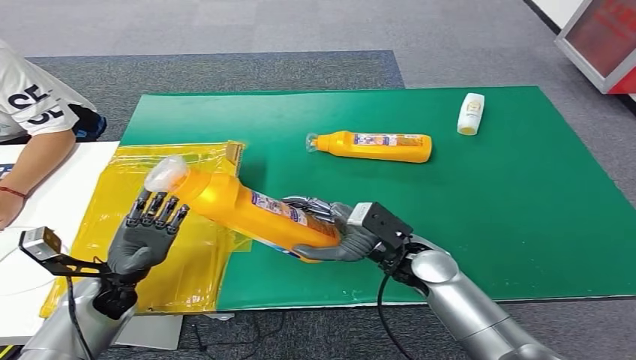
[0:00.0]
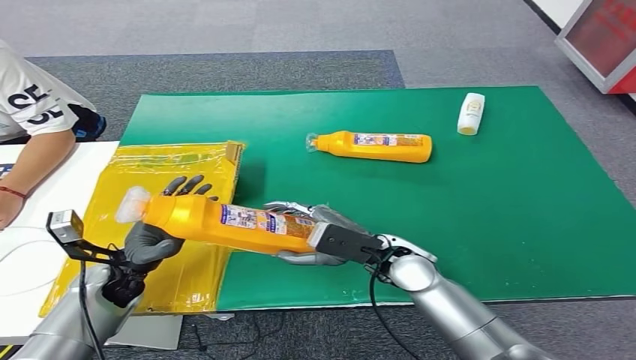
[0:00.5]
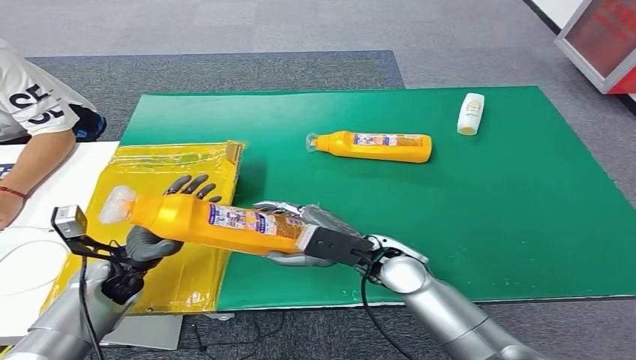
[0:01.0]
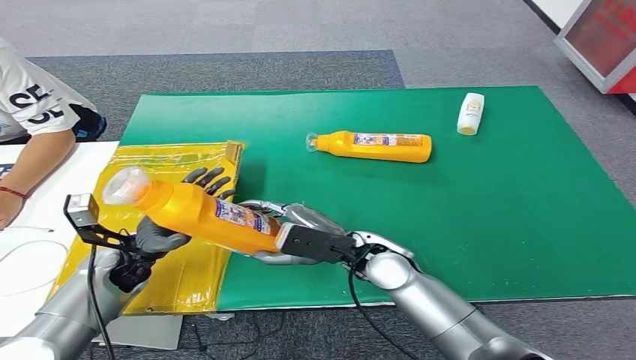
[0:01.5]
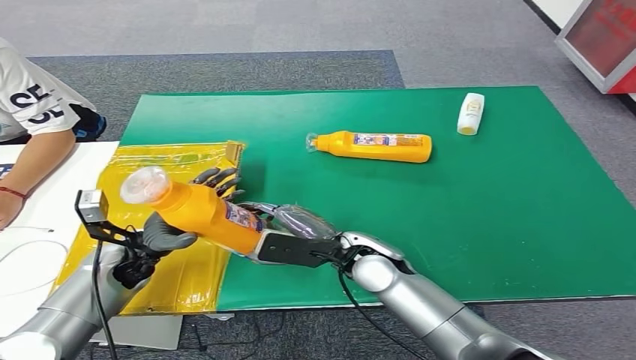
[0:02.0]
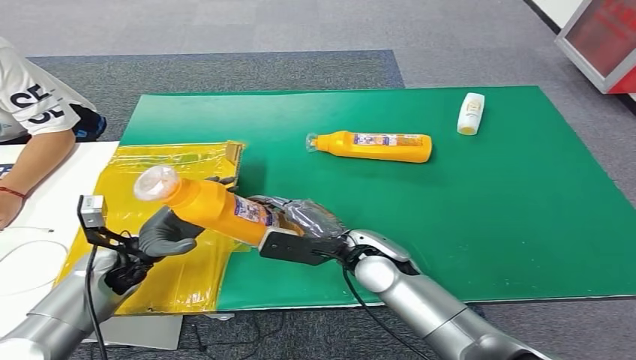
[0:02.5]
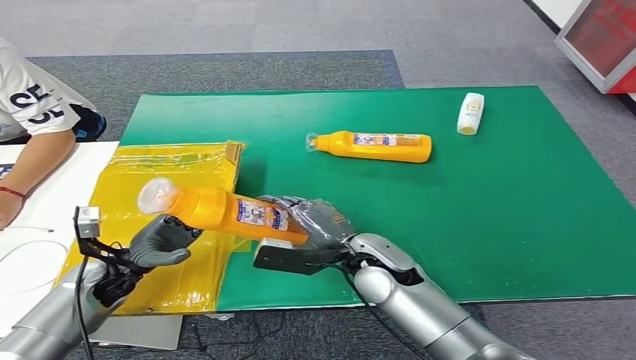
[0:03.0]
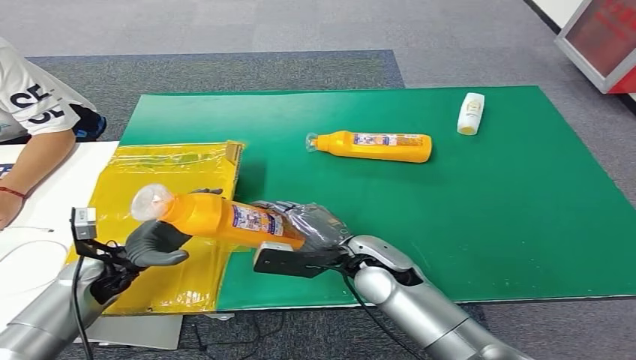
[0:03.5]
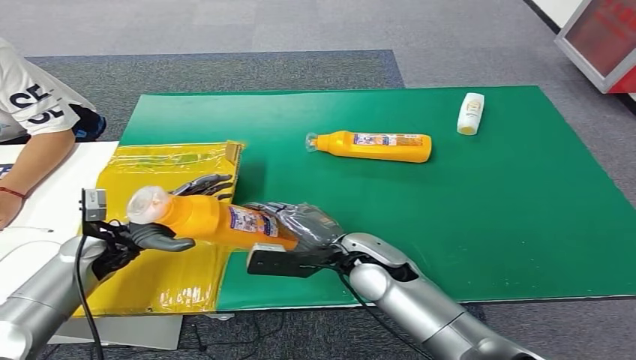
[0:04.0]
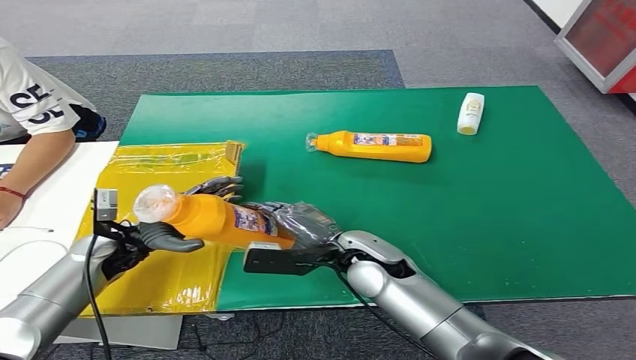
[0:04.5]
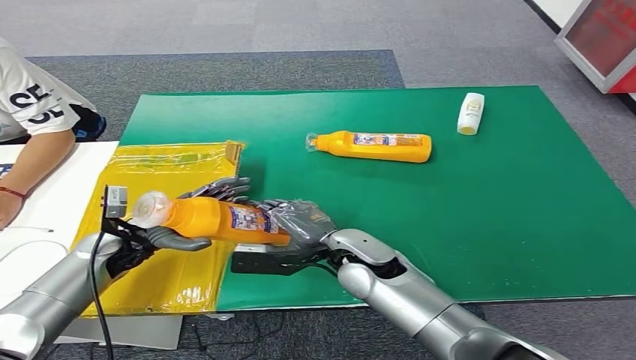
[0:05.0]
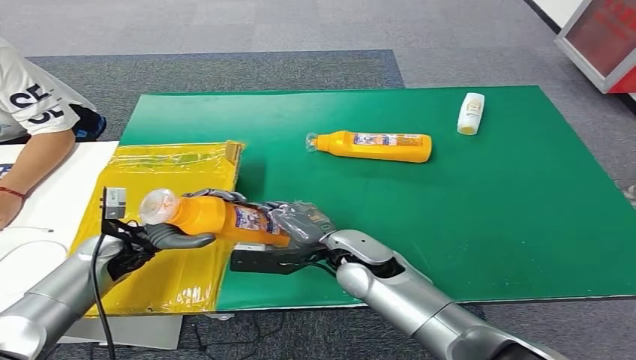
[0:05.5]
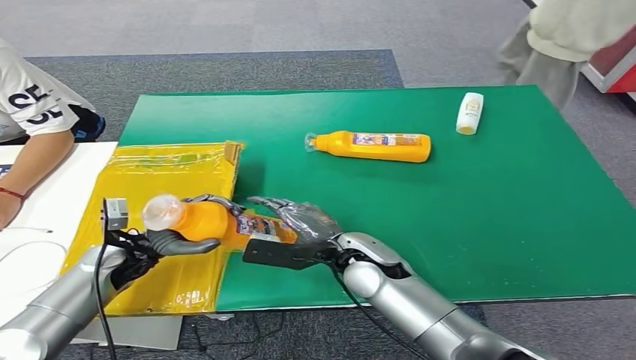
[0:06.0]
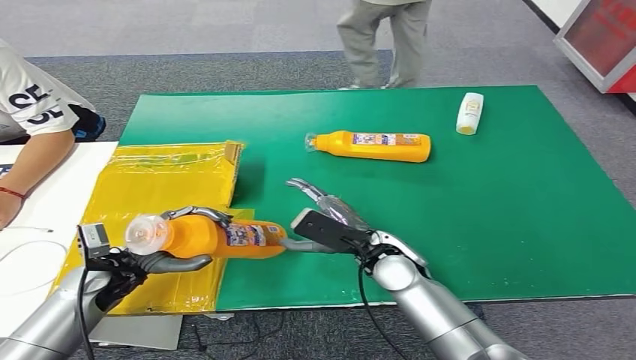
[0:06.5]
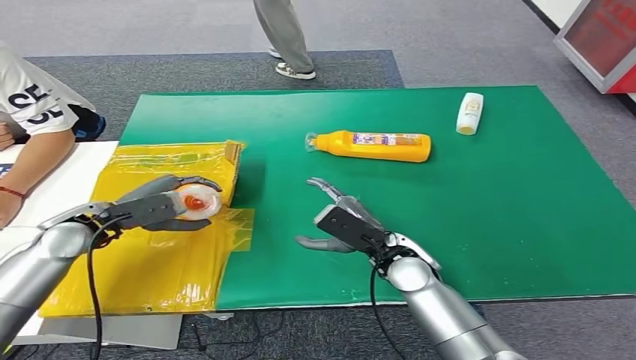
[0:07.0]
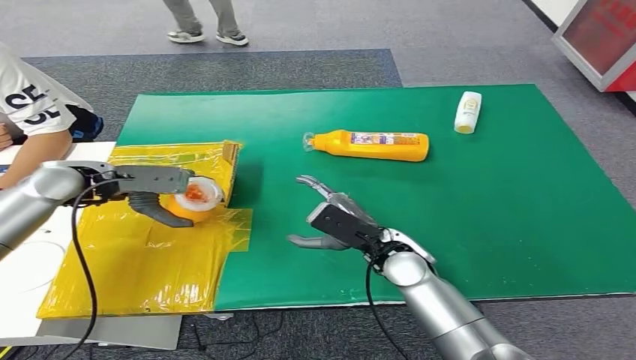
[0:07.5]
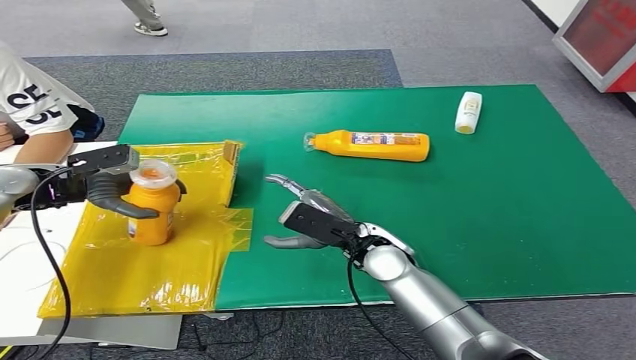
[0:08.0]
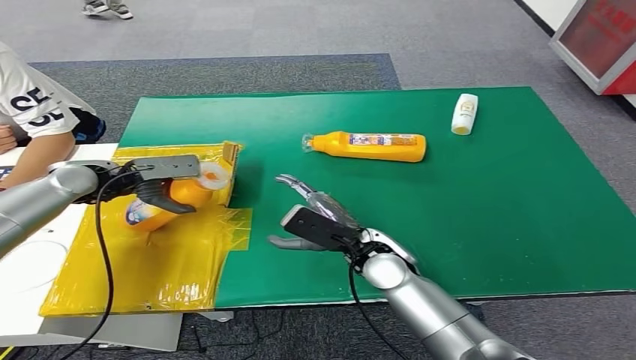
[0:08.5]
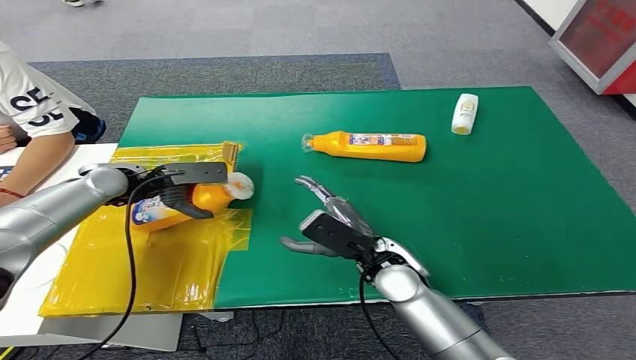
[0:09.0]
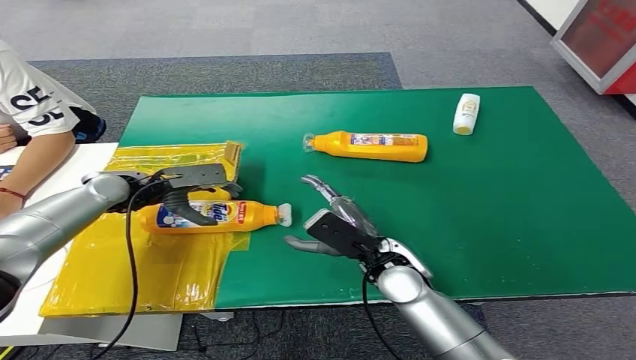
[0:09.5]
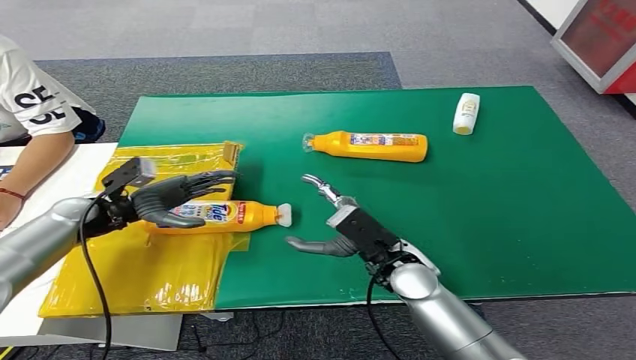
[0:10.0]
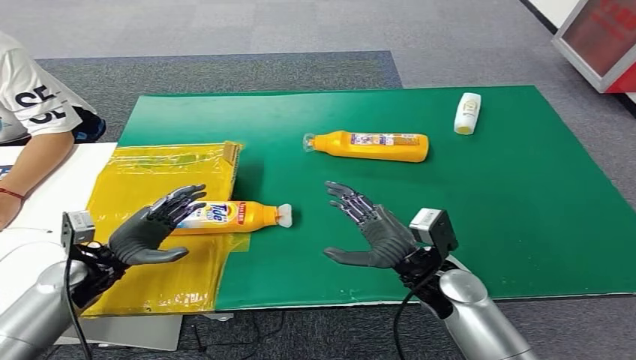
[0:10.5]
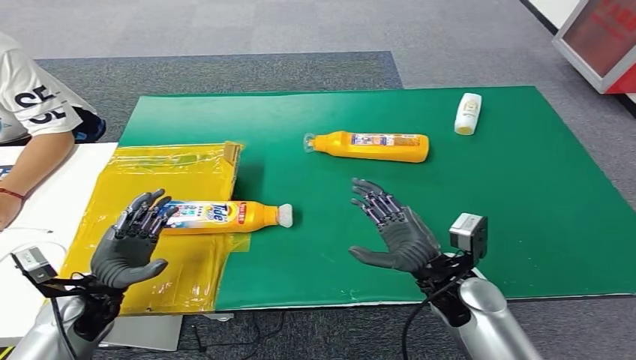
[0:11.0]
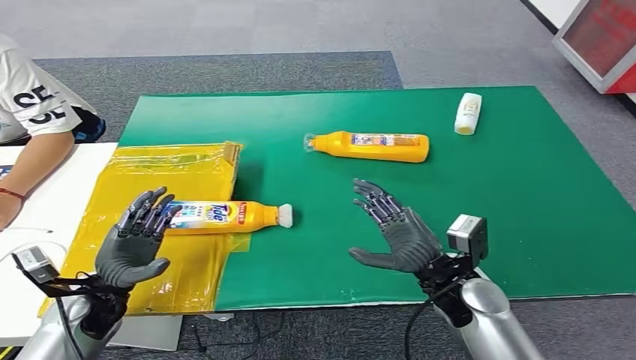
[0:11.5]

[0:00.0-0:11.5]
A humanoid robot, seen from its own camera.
Step, 0:00.0 to 0:11.0: Turn the bottle to the front side.
0:00.0 to 0:02.0: The left hand shifts about 5 cm forward. The right hand heads to the left, covering some 5 cm.
0:02.0 to 0:04.0: The left hand ends up approximately 5 cm from where it was.
0:04.0 to 0:06.0: The hands make only small movements.
